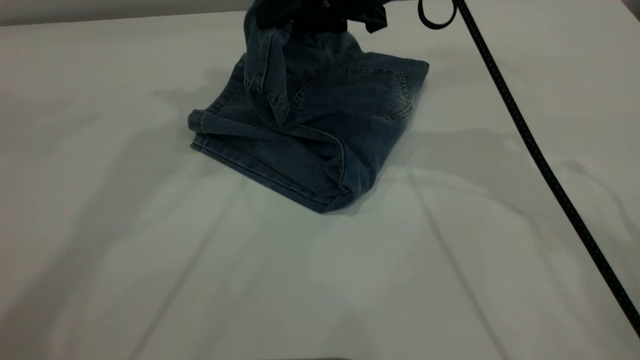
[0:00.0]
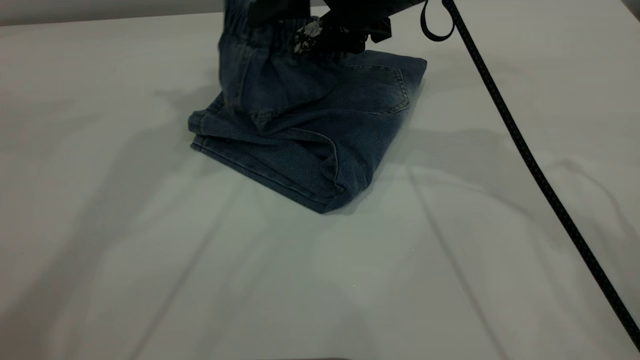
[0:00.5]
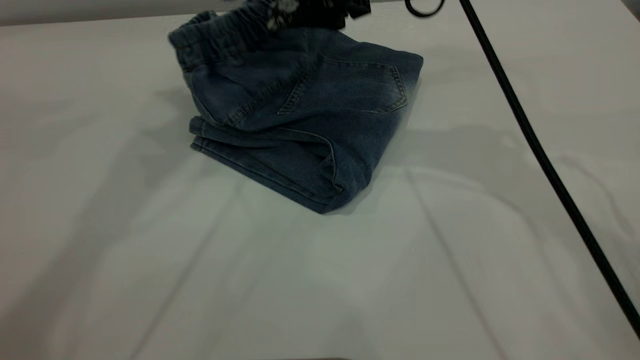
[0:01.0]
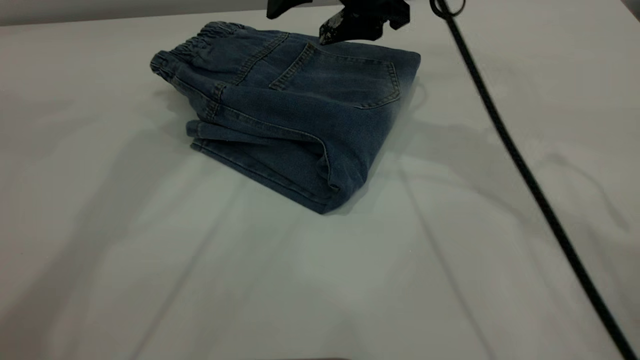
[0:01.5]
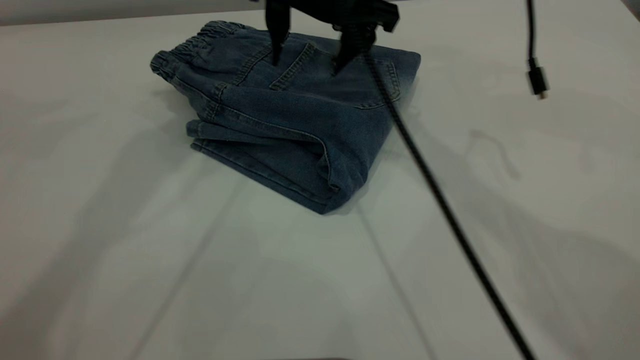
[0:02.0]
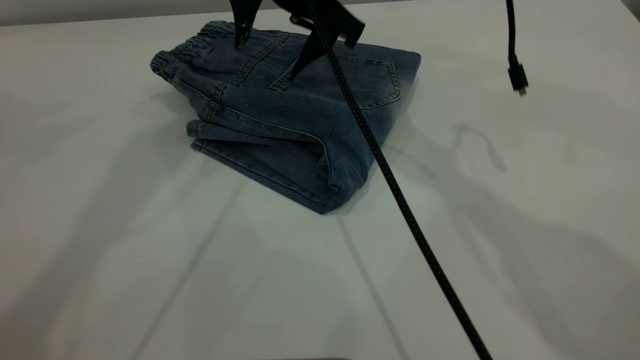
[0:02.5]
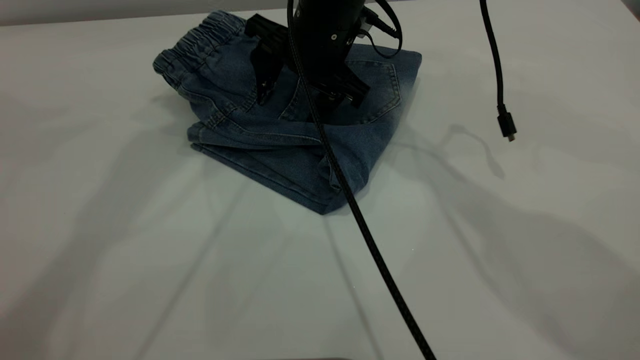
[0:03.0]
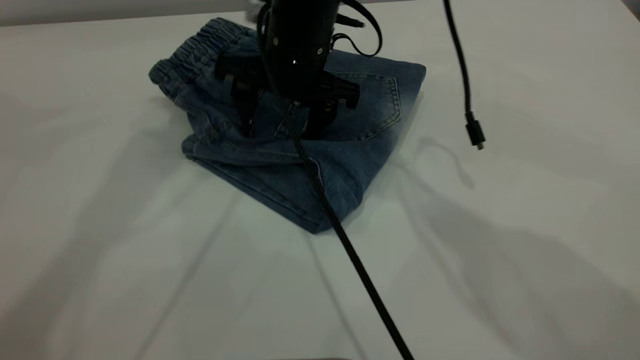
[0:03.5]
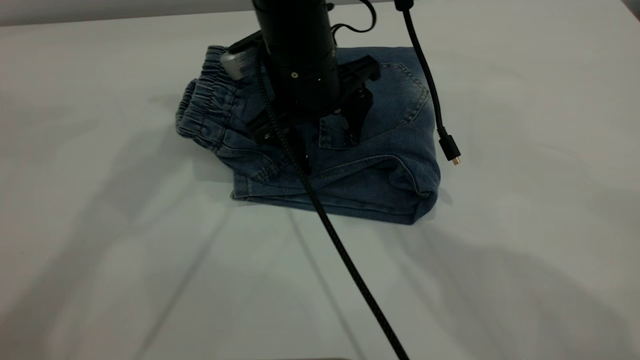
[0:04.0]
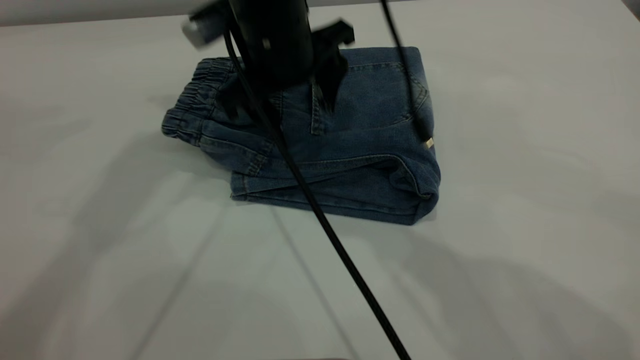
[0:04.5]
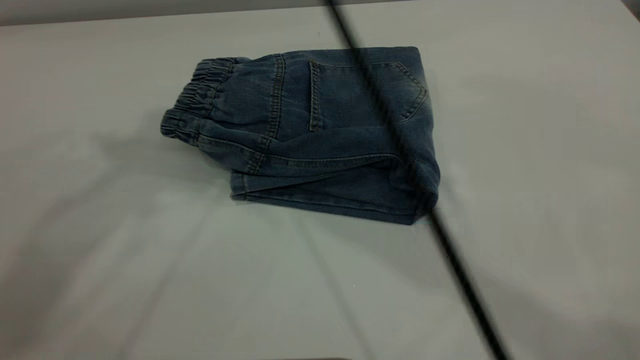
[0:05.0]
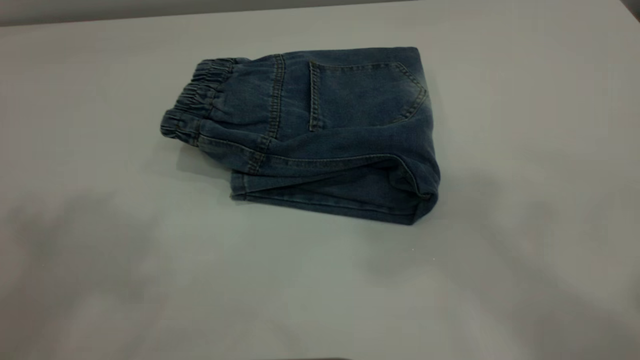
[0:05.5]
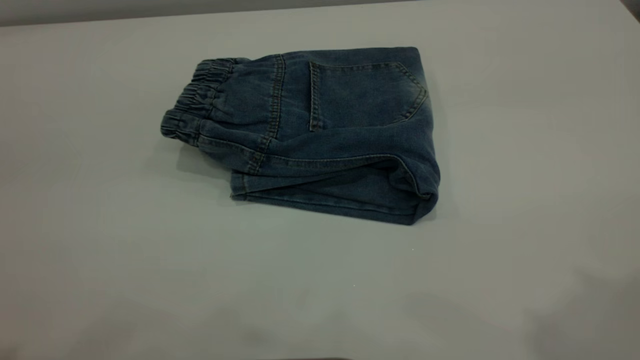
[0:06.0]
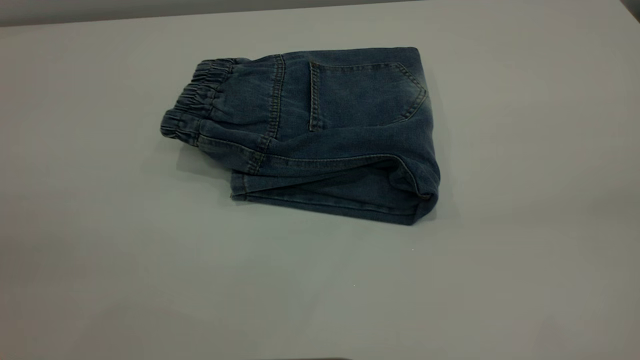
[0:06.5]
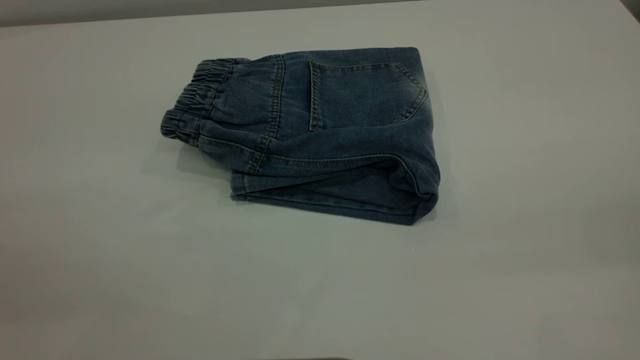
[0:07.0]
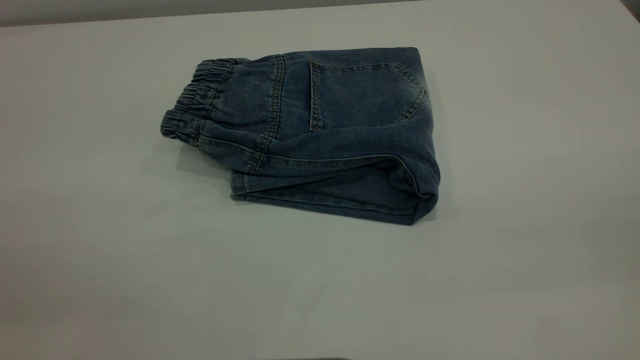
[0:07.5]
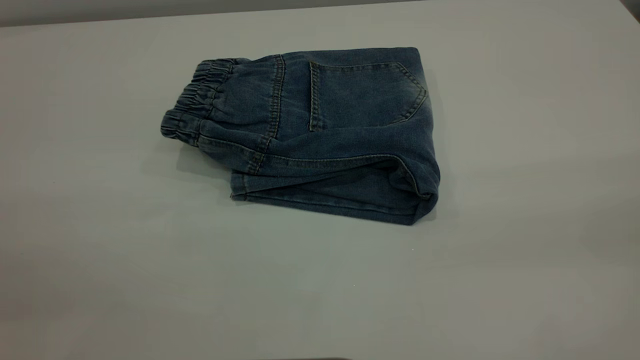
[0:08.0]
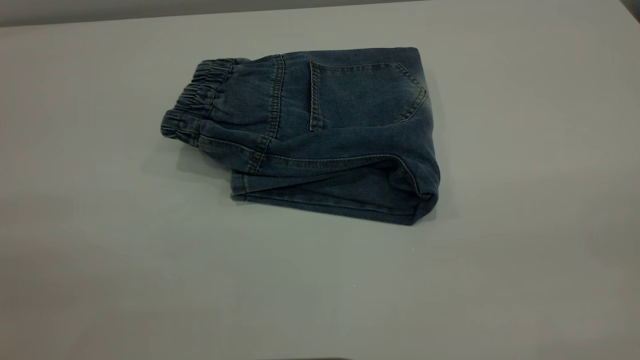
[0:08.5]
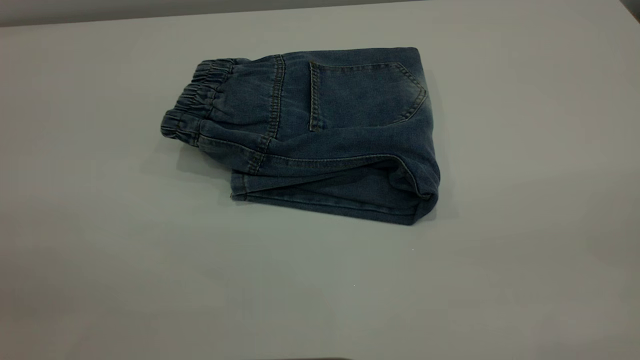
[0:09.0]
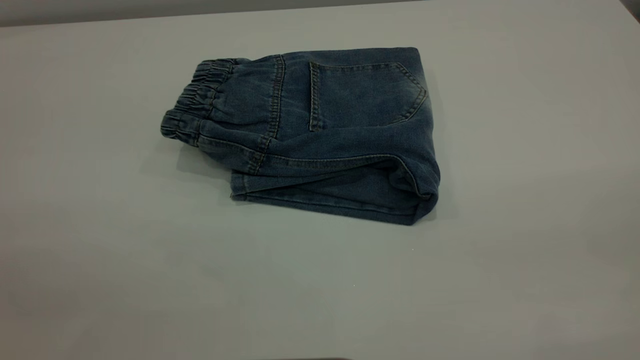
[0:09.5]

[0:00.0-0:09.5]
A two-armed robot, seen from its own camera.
0:00.0 to 0:02.0: The right gripper changes place by some 5 cm, and opens its fingers.
0:02.0 to 0:04.0: The right gripper heads downward and backward, covering about 10 cm.
0:04.0 to 0:05.5: The right gripper moves upward, some 40 cm; the left gripper is displaced backward and upward by about 25 cm.
